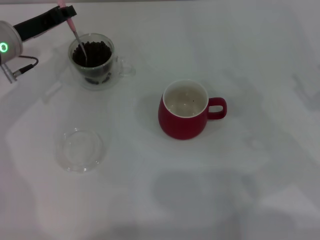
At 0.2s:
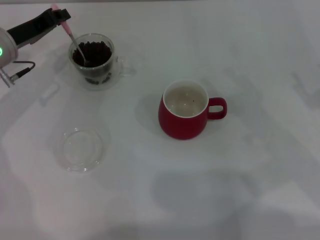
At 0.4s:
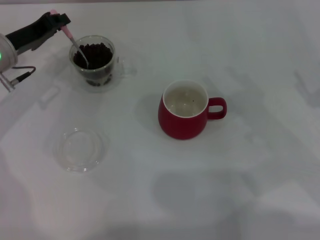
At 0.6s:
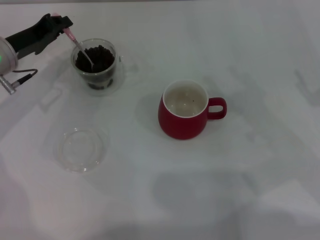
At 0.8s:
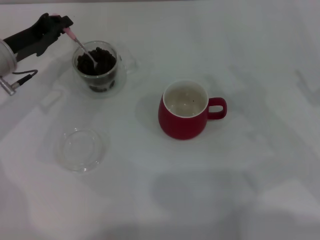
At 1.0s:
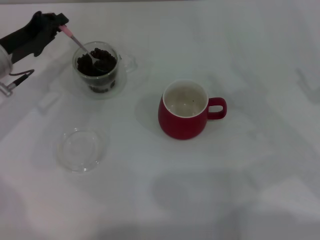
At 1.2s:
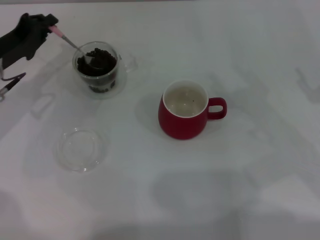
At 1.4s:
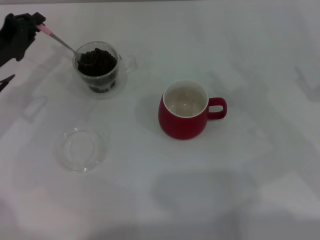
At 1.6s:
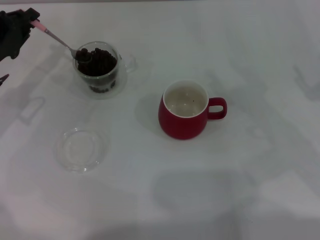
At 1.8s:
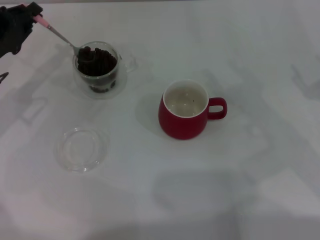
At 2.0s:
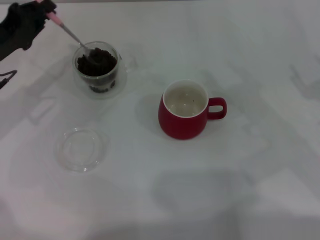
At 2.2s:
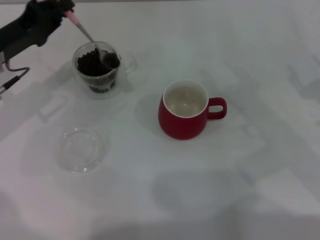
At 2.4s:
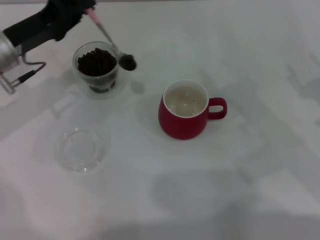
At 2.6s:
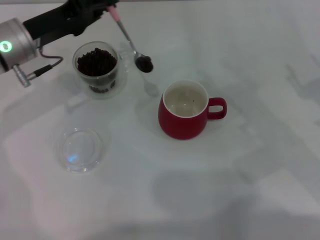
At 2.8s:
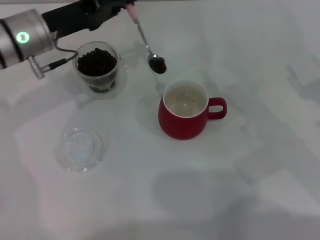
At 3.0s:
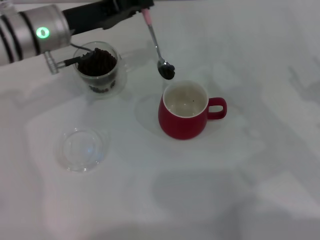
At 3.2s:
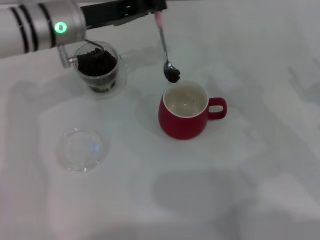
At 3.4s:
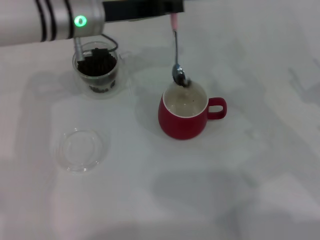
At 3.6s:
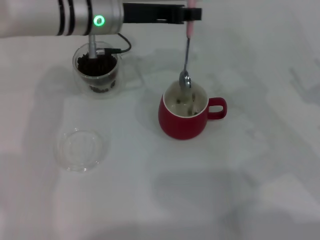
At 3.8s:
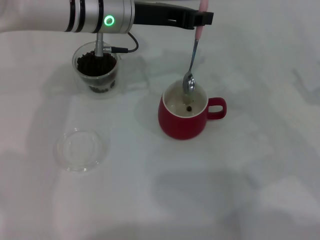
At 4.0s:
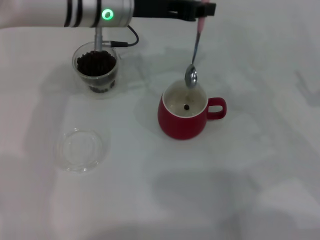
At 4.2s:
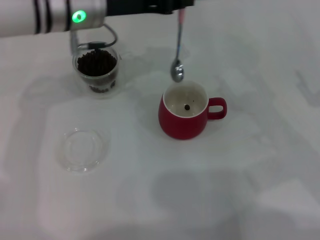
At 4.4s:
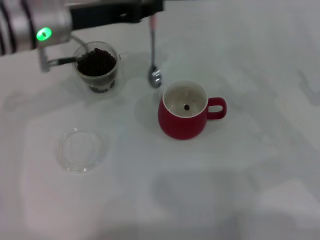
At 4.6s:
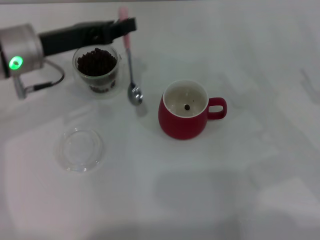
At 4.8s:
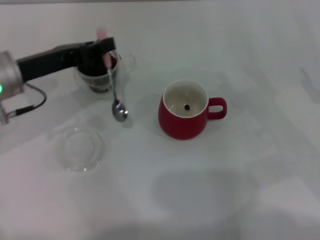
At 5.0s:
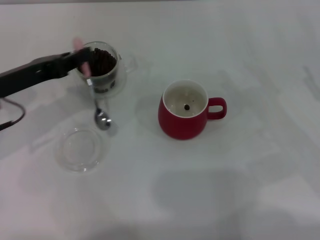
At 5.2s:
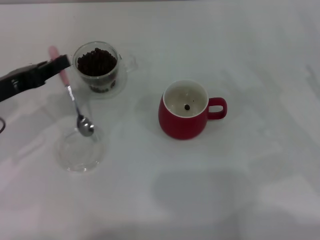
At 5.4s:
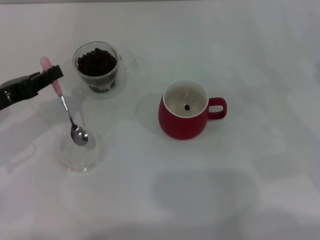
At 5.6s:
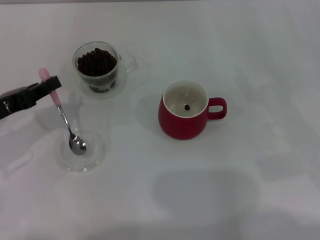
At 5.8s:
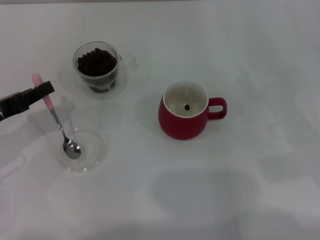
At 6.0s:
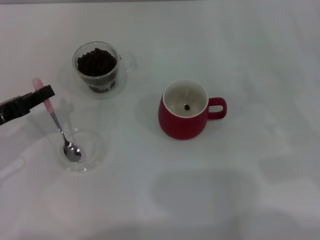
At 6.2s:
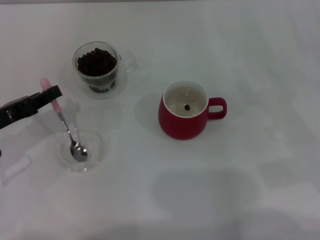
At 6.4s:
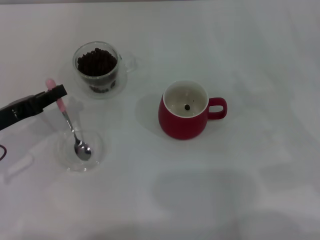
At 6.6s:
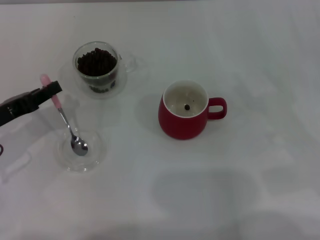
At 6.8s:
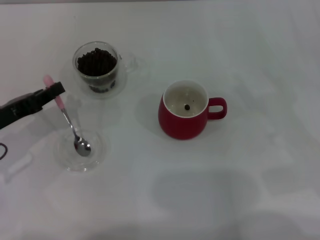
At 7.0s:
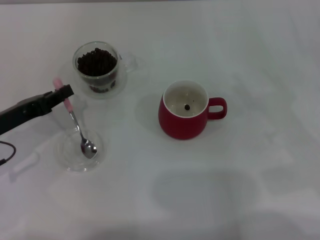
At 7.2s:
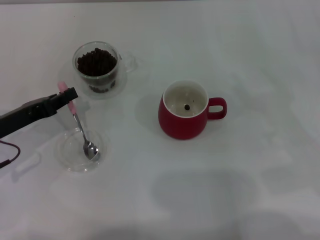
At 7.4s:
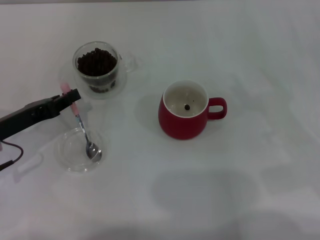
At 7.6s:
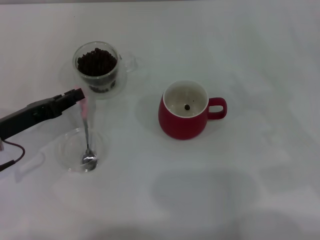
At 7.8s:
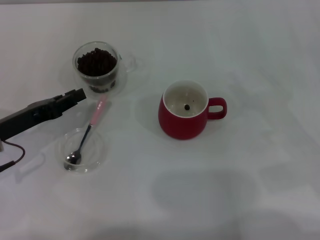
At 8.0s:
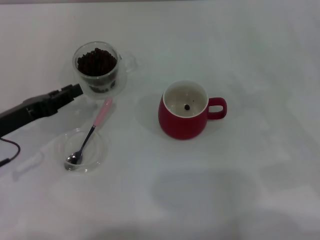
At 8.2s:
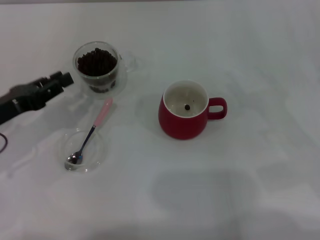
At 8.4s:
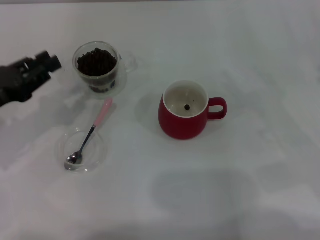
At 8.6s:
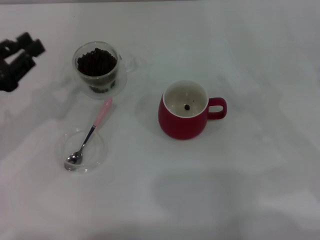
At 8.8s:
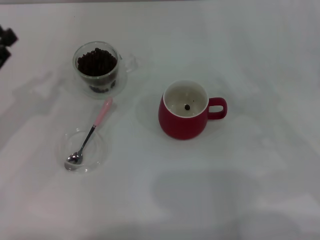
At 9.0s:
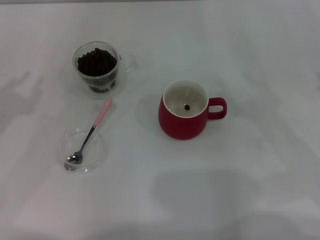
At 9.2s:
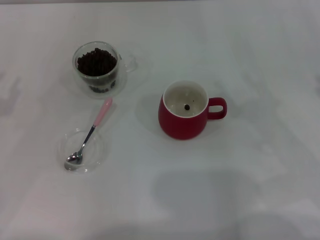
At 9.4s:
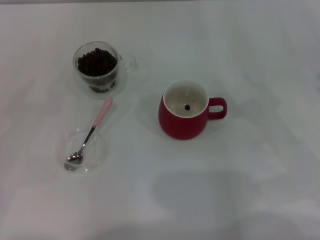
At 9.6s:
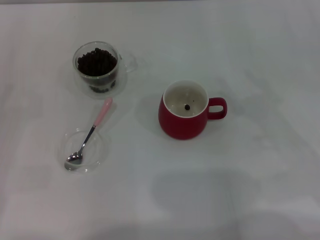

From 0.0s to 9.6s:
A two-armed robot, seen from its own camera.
Task of the whole recording: Use a pink spoon to take out the coffee beans from the glass and pour them into the red cup.
Step, from 0.0s to 3.6s: Scoop a spoonful of beans into the cup with the right gripper.
From 0.0s to 1.6s: The left gripper travels backward and to the left by roughly 10 cm.
From 1.6s to 3.2s: The left gripper shifts about 15 cm to the right.
From 3.2s to 4.8s: The left gripper moves to the left and backward, roughly 10 cm.
From 4.8s to 6.4s: The left gripper moves to the left, backward and downward, some 10 cm.
From 6.4s to 8.0s: The grippers move only a little.
From 8.0s to 9.6s: The left gripper moves to the left and backward, some 10 cm.
